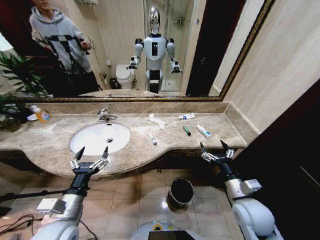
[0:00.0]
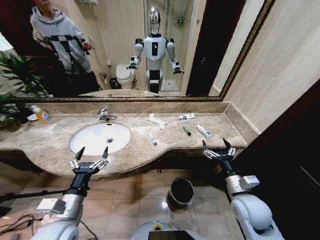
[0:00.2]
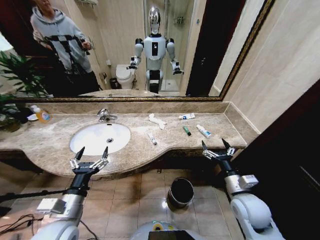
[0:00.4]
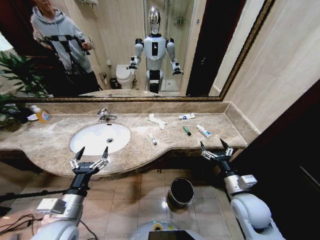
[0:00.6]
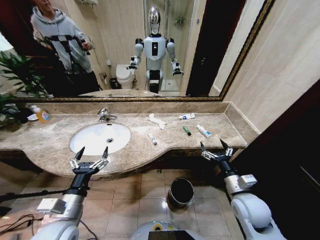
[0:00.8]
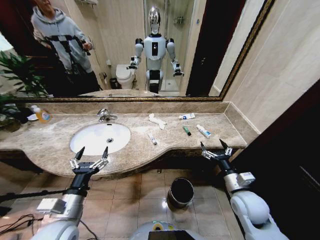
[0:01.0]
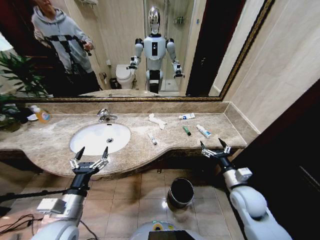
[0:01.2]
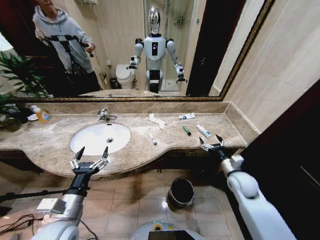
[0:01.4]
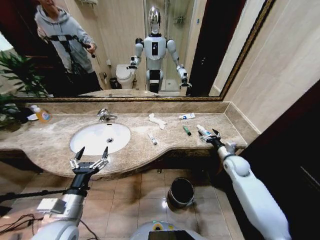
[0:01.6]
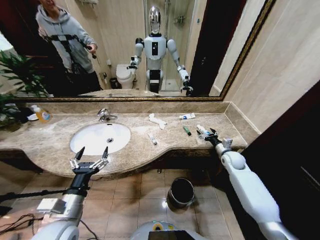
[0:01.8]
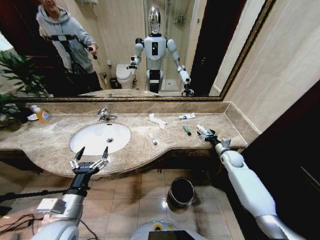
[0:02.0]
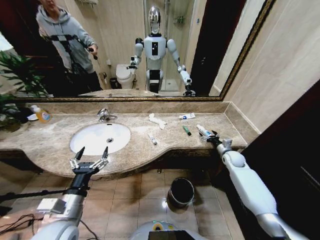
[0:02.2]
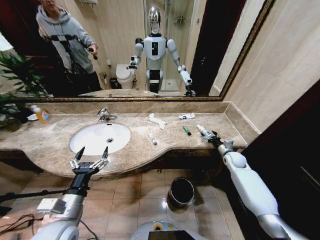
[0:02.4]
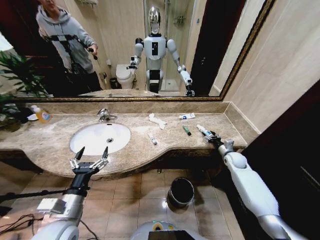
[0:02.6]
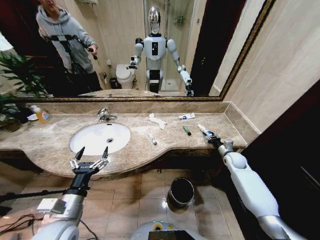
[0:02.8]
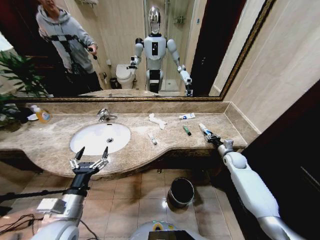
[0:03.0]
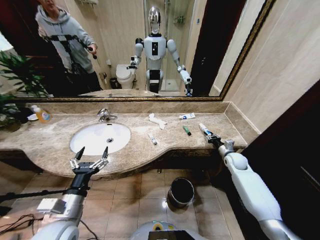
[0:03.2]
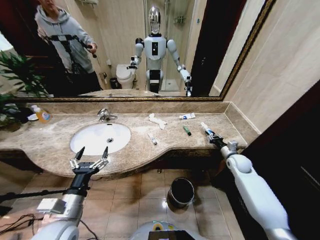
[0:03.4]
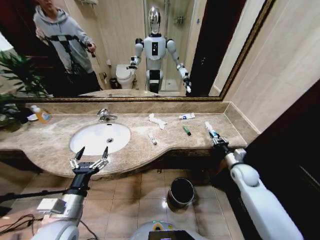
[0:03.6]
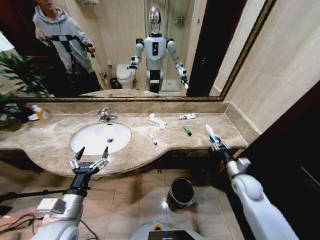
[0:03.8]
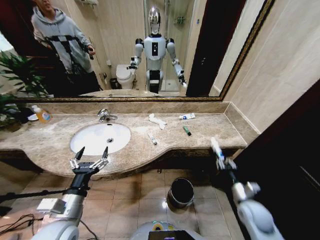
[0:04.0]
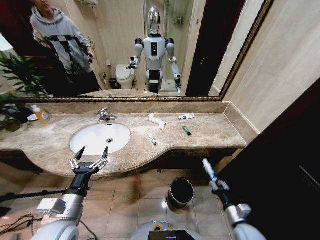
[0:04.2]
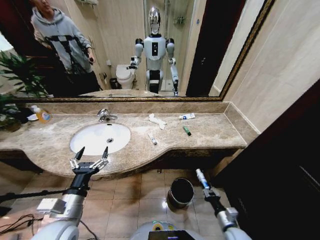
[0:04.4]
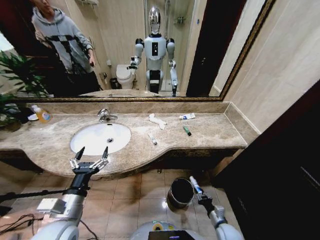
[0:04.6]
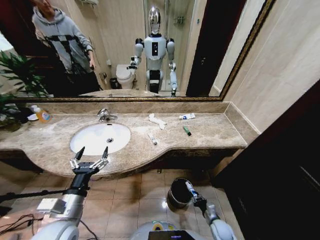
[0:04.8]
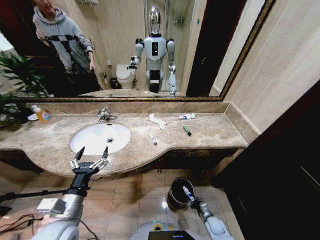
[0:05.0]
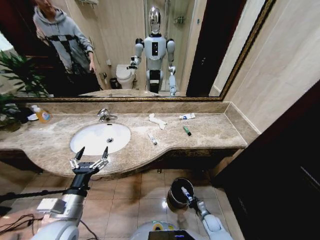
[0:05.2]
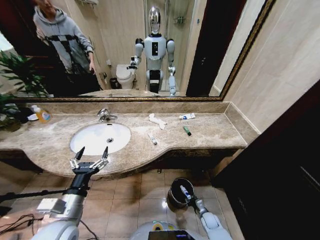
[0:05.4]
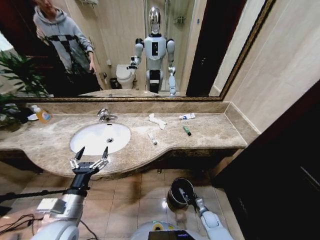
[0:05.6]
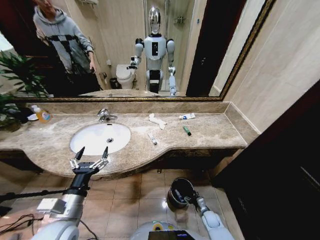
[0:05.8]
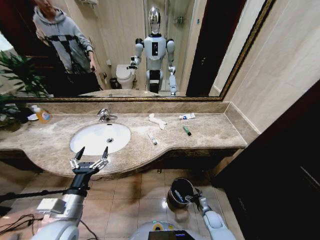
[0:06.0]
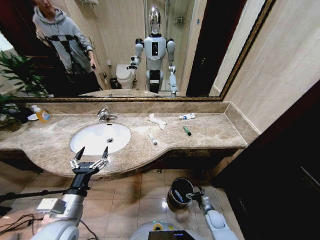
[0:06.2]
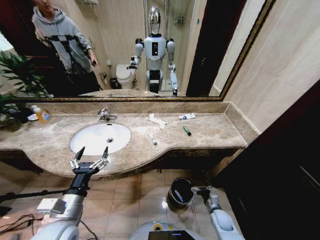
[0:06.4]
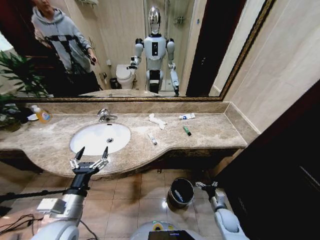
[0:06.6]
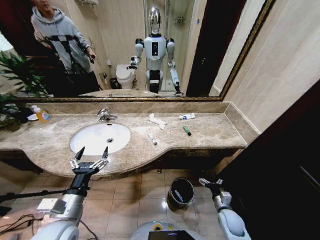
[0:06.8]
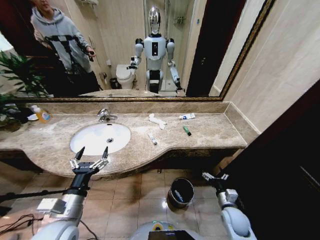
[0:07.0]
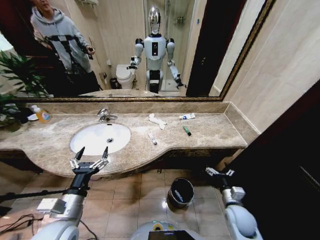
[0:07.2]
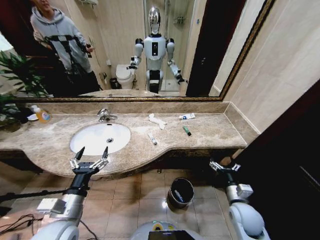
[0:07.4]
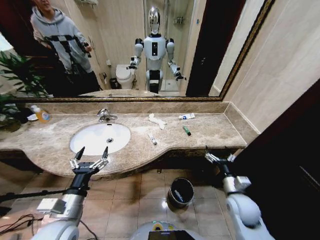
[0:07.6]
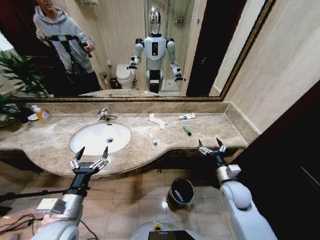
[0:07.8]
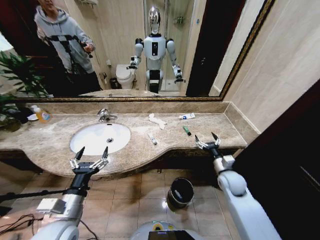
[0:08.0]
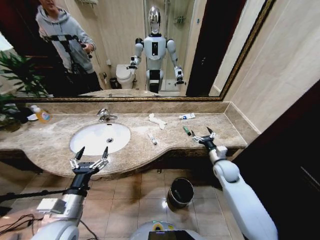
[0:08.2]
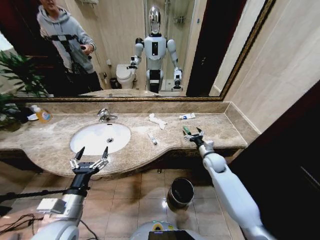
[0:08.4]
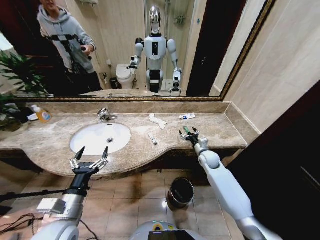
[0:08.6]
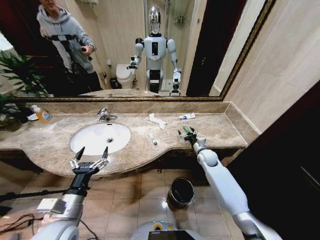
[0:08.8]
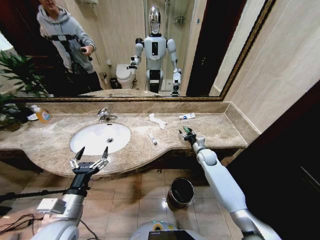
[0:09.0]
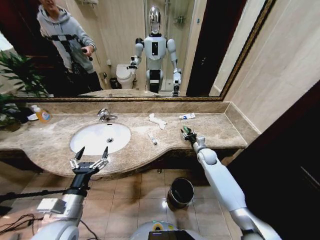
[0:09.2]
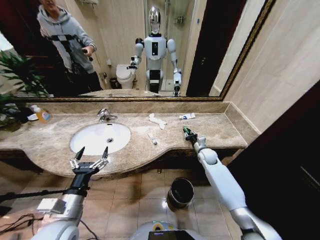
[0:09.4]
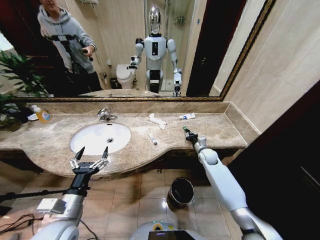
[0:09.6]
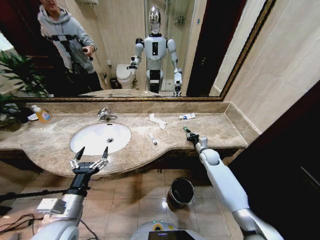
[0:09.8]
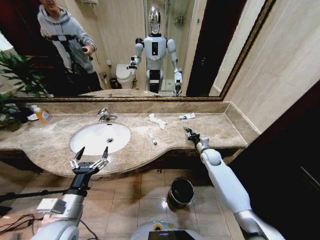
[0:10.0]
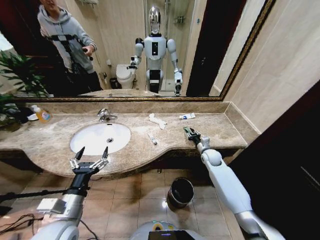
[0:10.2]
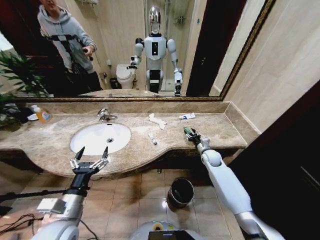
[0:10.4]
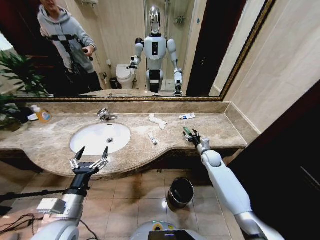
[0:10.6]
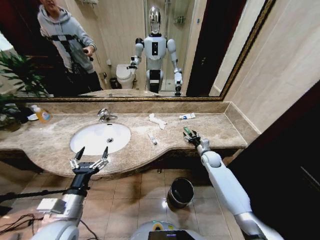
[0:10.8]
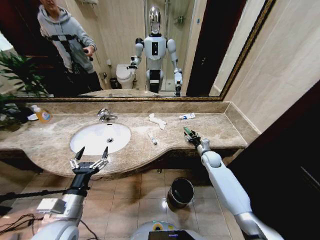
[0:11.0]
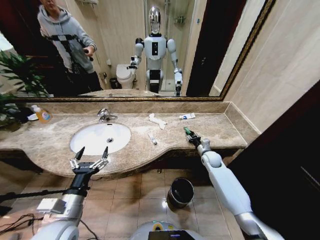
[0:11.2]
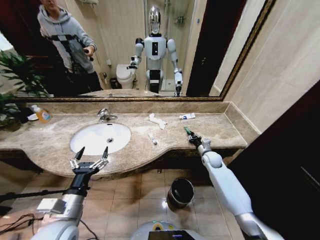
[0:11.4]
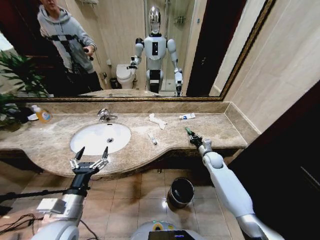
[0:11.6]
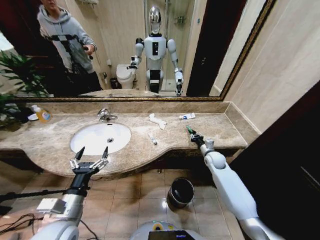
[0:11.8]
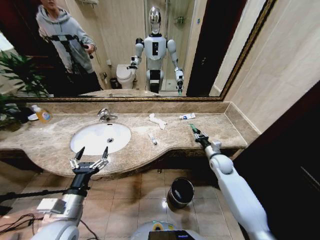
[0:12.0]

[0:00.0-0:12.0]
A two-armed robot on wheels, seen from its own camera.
Task of the whole recording: Pick up the trash from the sink and place it in the trash bin.
0:01.6 to 0:03.0: The right gripper goes some 5 cm forward, and closes up.
0:03.0 to 0:04.4: The right gripper moves backward and downward, some 35 cm.
0:04.4 to 0:06.0: The right gripper shifts roughly 15 cm downward and forward, and opens up.
0:06.0 to 0:07.6: The right gripper heads upward, covering about 30 cm.
0:07.6 to 0:09.0: The right gripper moves forward, about 25 cm.
0:09.0 to 0:10.4: The right gripper closes, then opens again.
0:10.4 to 0:12.0: The right gripper shifts approximately 5 cm backward, and closes.

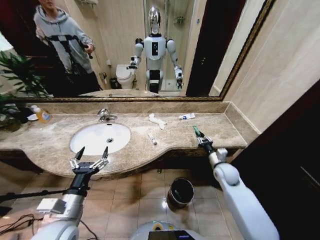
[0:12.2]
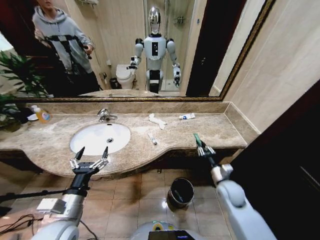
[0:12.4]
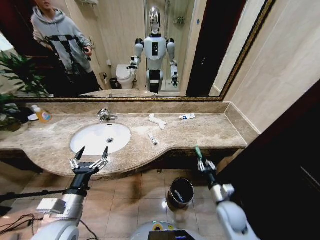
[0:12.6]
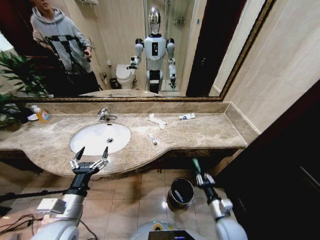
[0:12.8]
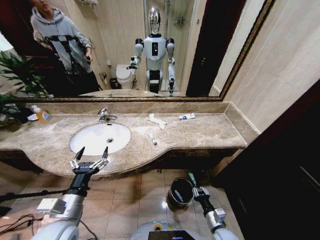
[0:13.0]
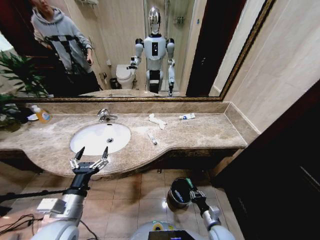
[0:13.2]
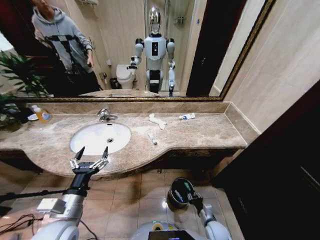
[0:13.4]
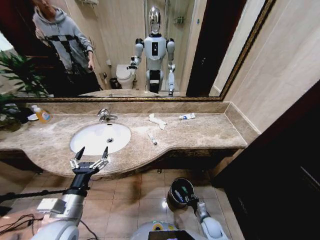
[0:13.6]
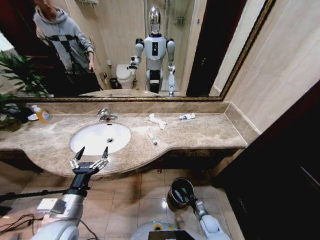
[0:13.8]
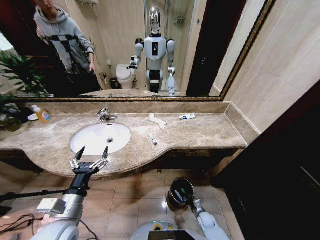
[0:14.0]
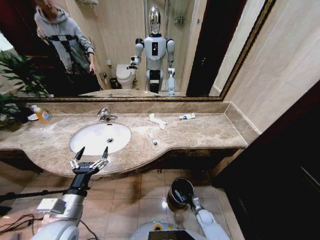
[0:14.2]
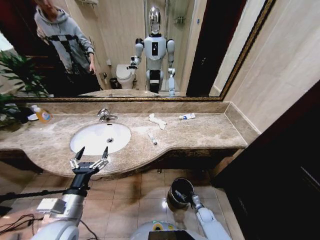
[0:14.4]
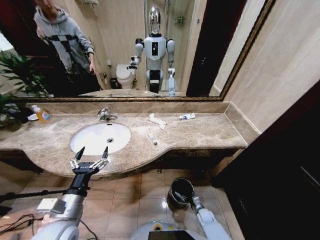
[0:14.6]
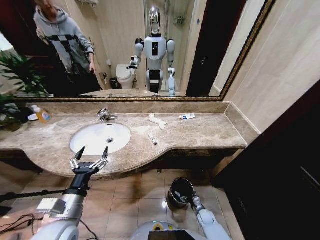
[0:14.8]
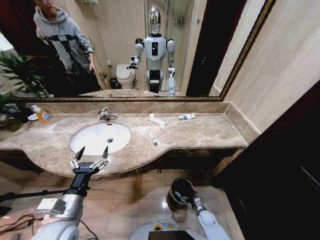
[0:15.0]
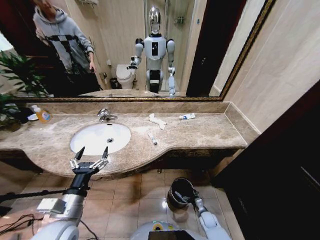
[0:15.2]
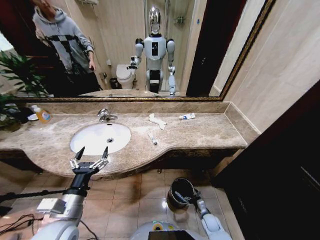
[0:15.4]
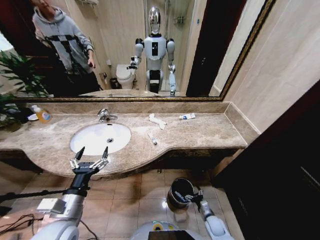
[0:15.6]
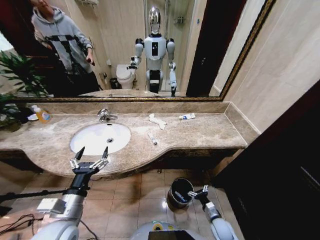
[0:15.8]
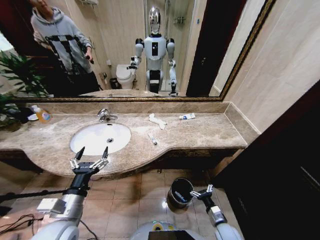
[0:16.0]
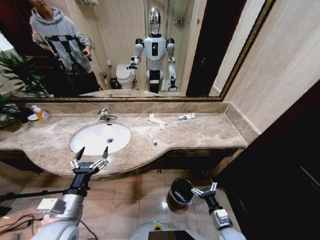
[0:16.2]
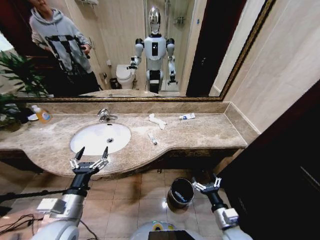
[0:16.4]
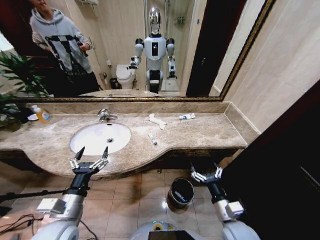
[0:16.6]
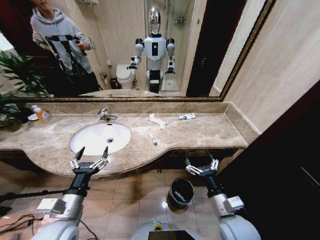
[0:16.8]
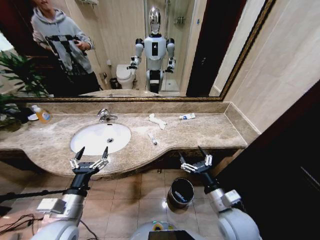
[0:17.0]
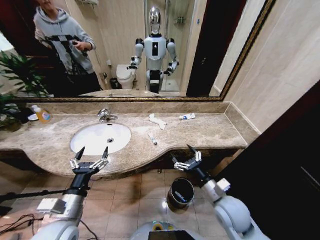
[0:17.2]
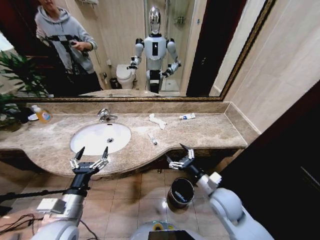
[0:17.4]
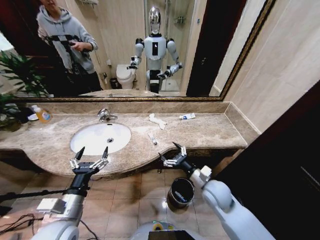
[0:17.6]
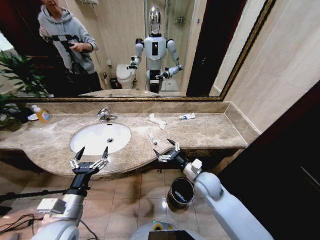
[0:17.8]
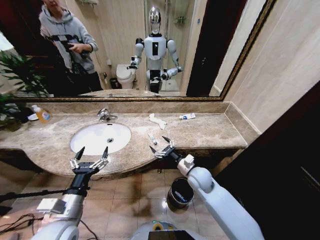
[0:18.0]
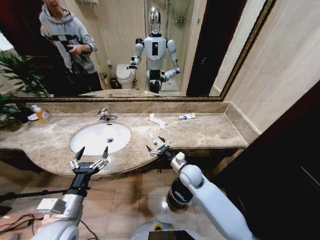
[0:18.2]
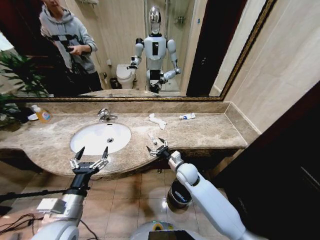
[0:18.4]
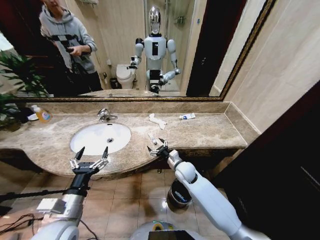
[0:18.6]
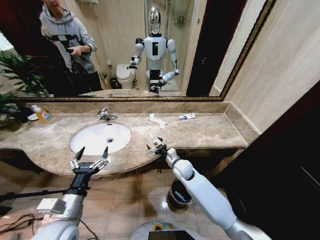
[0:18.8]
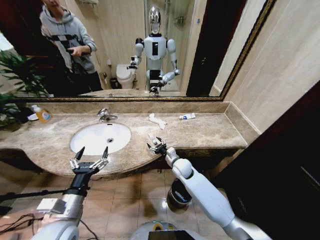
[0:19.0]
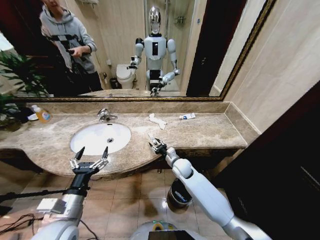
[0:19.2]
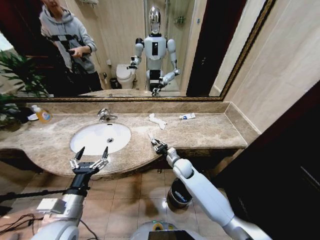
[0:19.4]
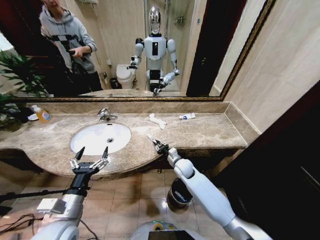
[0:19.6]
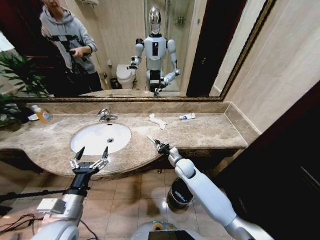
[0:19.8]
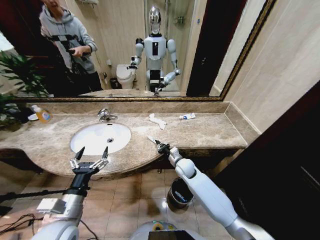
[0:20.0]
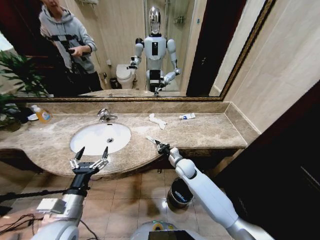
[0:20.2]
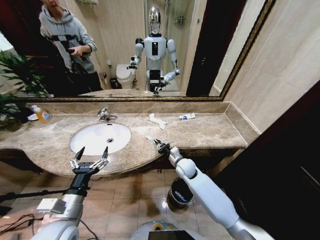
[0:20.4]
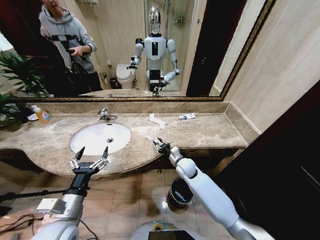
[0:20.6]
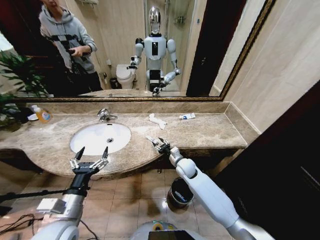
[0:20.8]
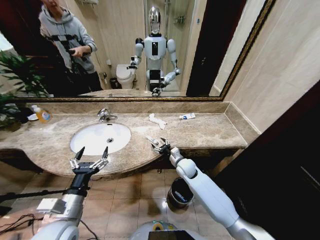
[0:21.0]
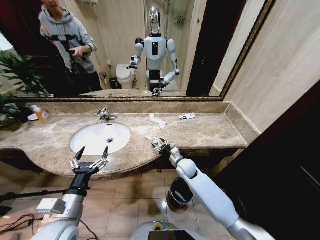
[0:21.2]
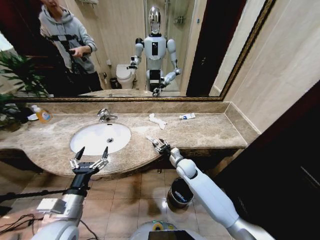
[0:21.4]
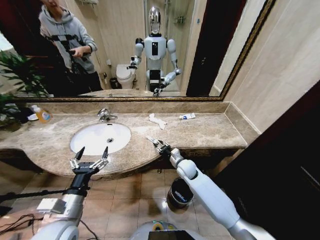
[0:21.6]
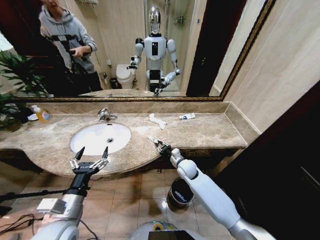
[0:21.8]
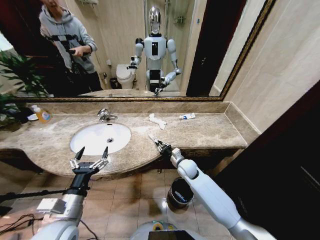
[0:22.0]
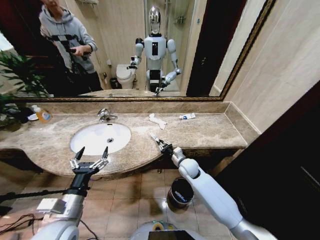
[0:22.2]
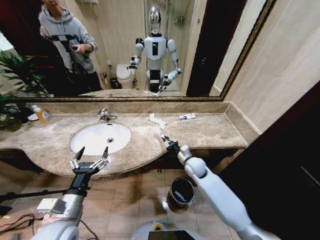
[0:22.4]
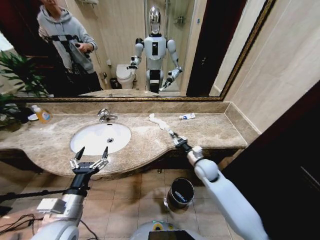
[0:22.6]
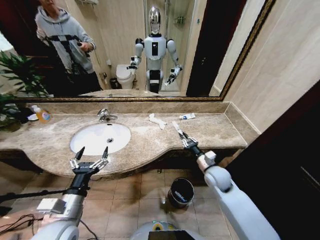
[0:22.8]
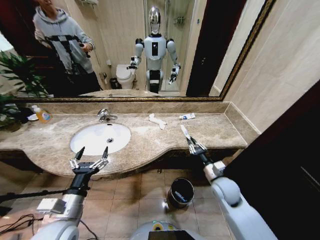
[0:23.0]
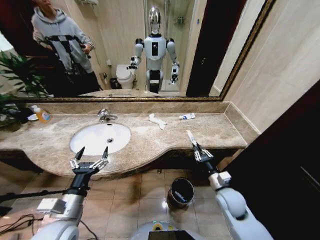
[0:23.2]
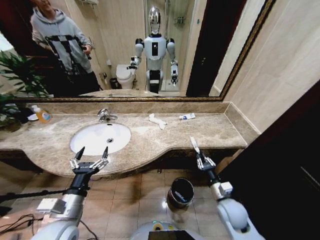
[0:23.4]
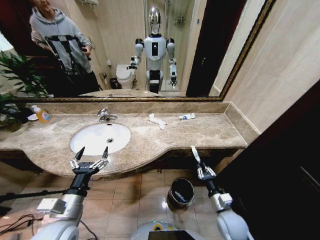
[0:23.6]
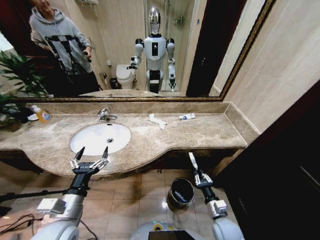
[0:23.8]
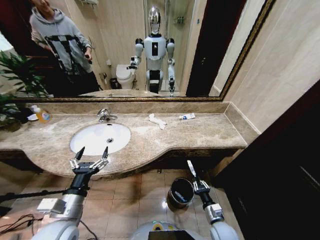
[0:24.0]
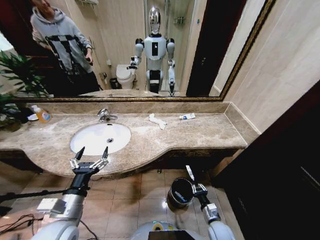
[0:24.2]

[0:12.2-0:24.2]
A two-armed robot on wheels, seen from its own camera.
Task of the whole recording: Pick up the trash from the sink and place it in the trash bin.
0:12.2 to 0:13.8: The right gripper heads downward and backward, covering some 30 cm.
0:13.8 to 0:15.2: The right gripper opens up.
0:15.2 to 0:16.6: The right gripper heads upward, covering some 30 cm.
0:16.6 to 0:18.2: The right gripper moves forward and to the left, approximately 25 cm.
0:18.2 to 0:19.8: The right gripper goes some 5 cm forward, and closes up.
0:19.8 to 0:21.2: The right gripper opens its fingers.
0:21.2 to 0:22.6: The right gripper heads to the right, covering about 10 cm, and closes.
0:22.6 to 0:24.2: The right gripper travels backward and downward by roughly 30 cm.
